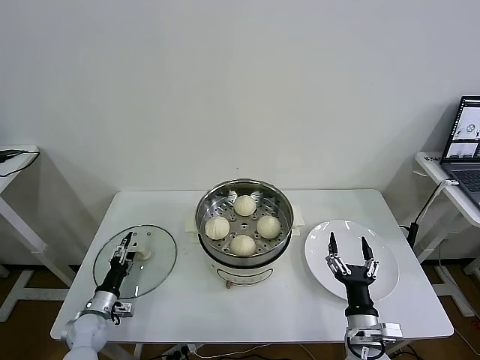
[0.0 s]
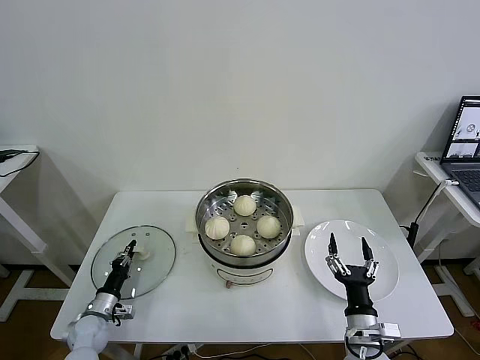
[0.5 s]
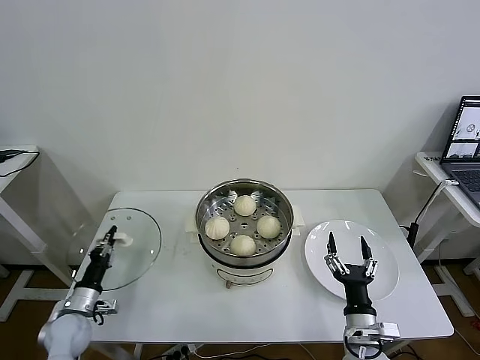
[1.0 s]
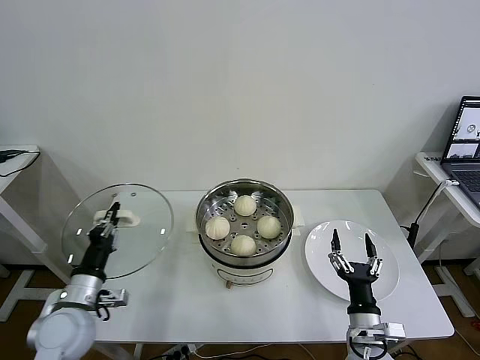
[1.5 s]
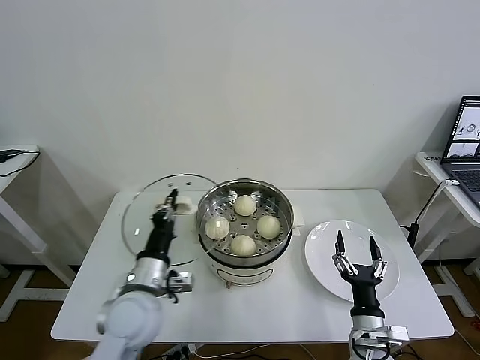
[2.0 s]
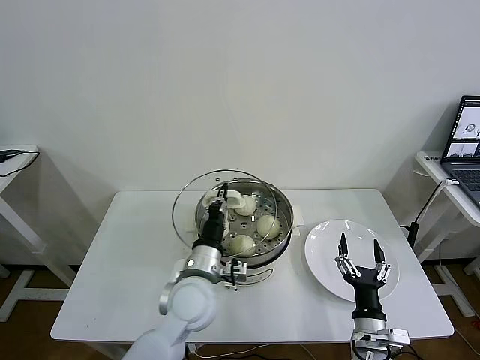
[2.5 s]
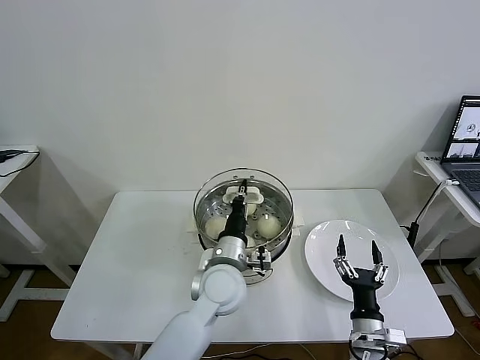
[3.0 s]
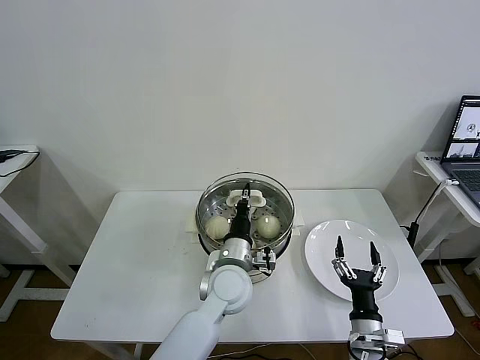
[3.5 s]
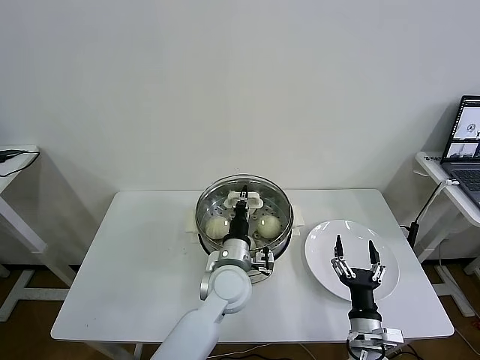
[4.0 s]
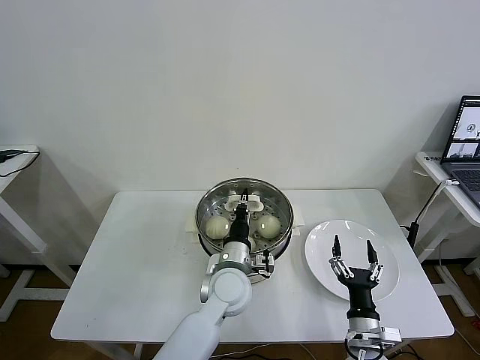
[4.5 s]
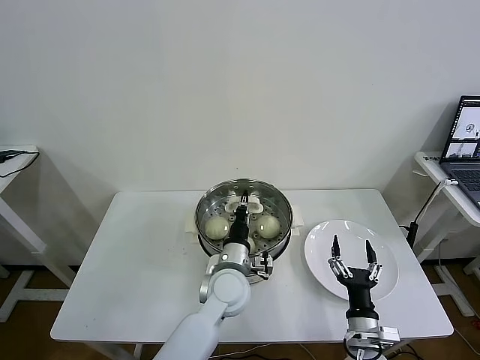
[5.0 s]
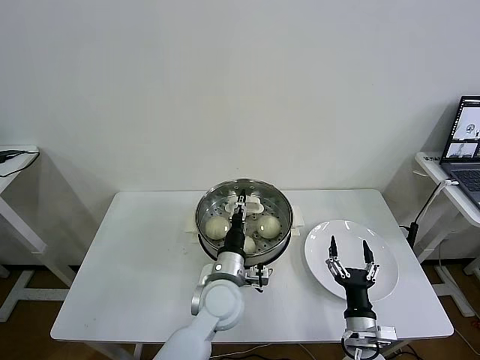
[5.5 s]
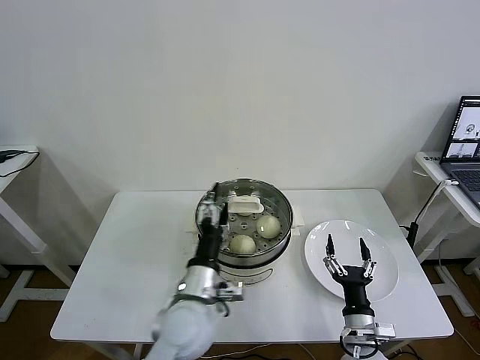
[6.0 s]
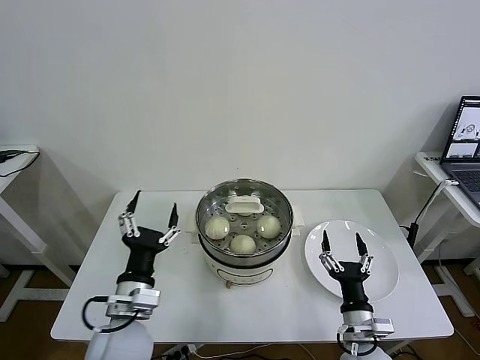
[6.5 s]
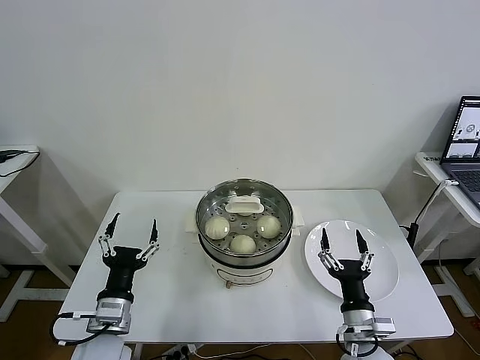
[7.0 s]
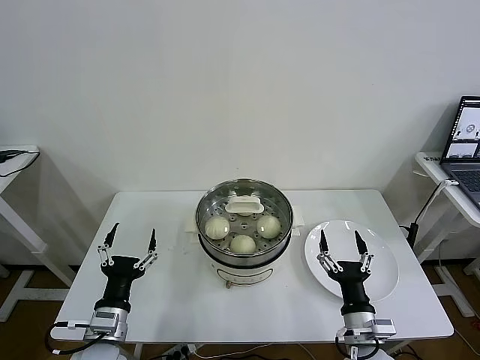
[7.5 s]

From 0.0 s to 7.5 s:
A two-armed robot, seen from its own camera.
Task of the whole recording: take steamed baozi put them in steamer then cover it.
Step, from 1.0 s to 6.0 s: Place the pot lid on the steamer with left gripper.
From 0.0 s to 2.0 s: The left gripper goes approximately 30 cm upward and to the right, and closes up.
From 2.0 s to 4.0 s: The left gripper moves to the right and forward, roughly 20 cm.
From 4.0 s to 5.5 s: The left gripper opens.
From 5.5 s to 7.5 s: The left gripper goes approximately 25 cm to the left and backward, and opens up.
